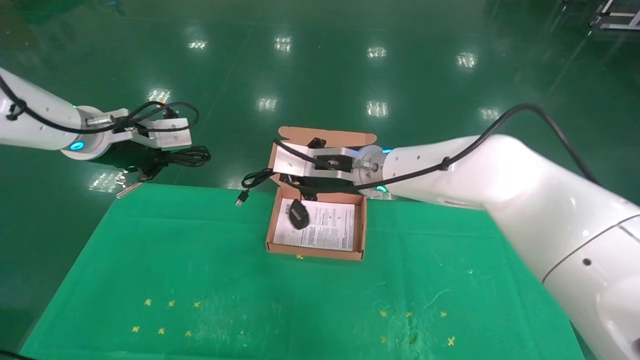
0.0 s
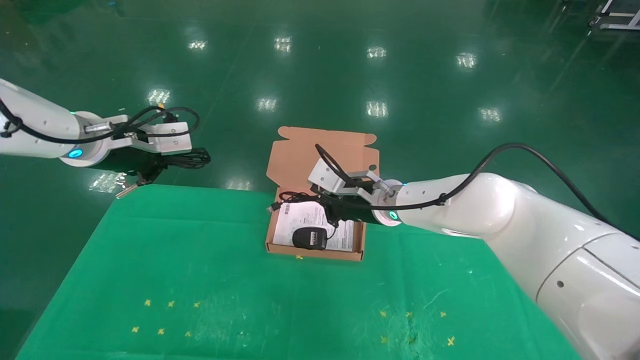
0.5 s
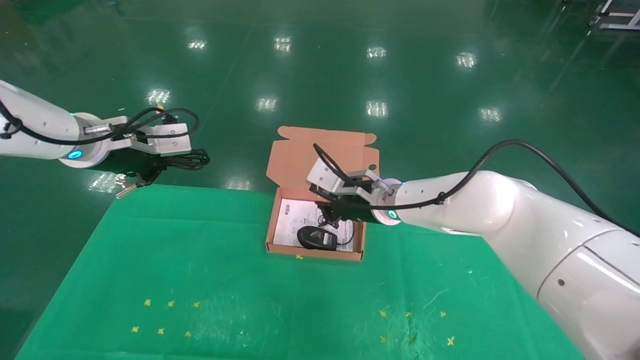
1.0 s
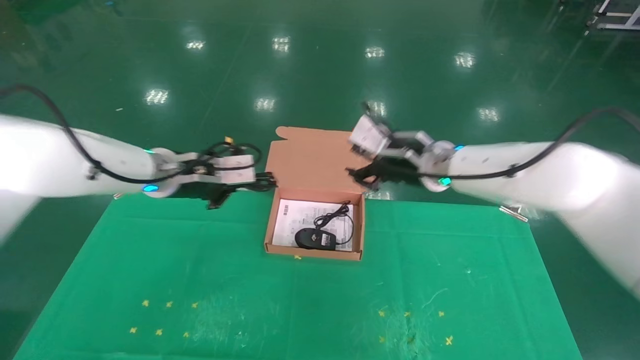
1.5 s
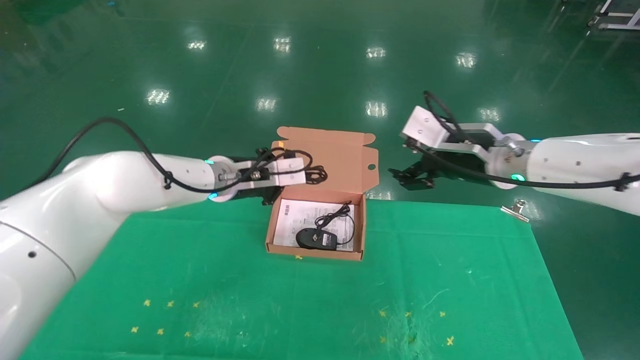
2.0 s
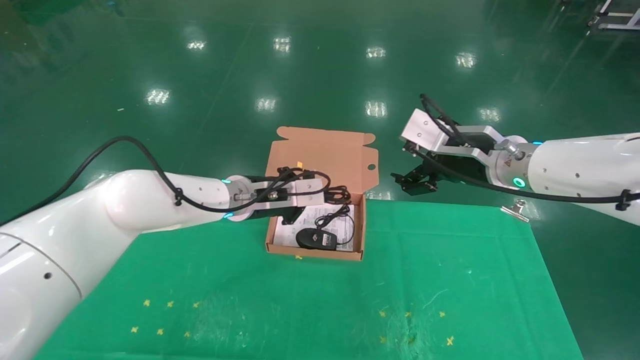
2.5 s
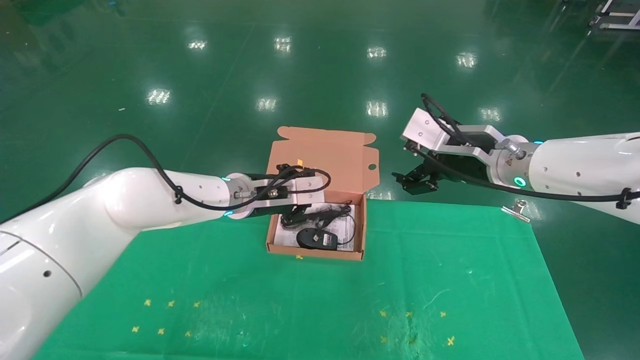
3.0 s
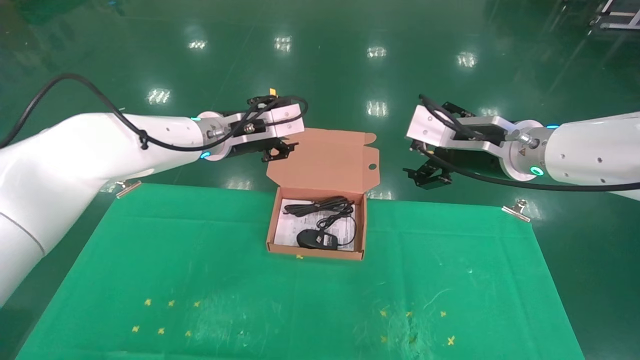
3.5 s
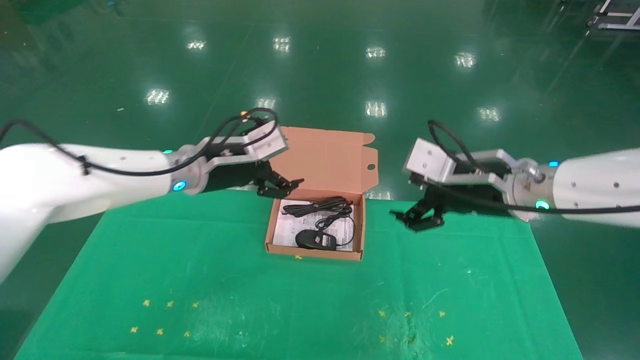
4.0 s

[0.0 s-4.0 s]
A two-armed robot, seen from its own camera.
Task of the whole recording: grasp data cable left put into box grasp mouse right put into box.
Step, 0.0 to 2.5 s: Place the mouse and power cord into the box.
0.0 to 2.0 s: The left gripper travels to the right and downward by roughly 20 cm, while the right gripper moves to the right, roughly 15 cm, and opens up.
2.0 to 4.0 s: The left gripper changes place by about 5 cm, and opens. The right gripper ends up roughly 5 cm from where it was.
